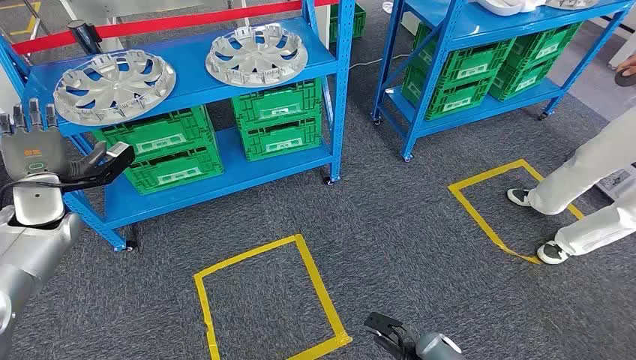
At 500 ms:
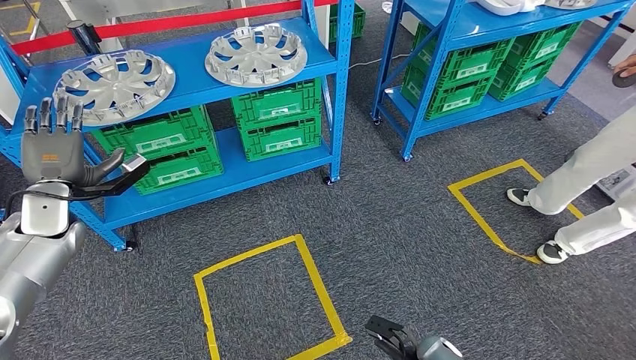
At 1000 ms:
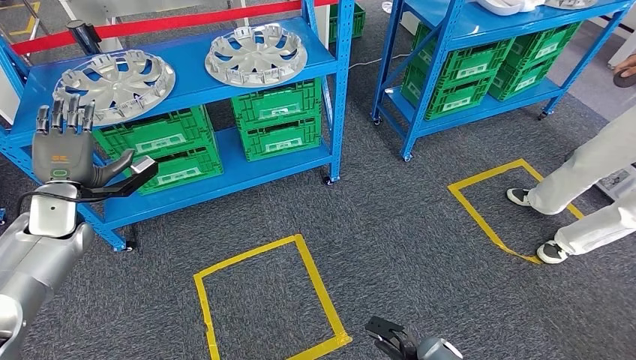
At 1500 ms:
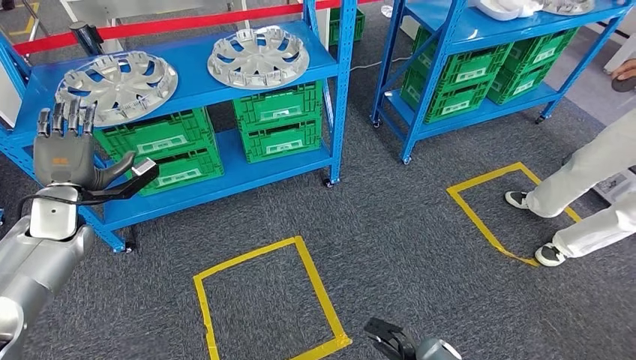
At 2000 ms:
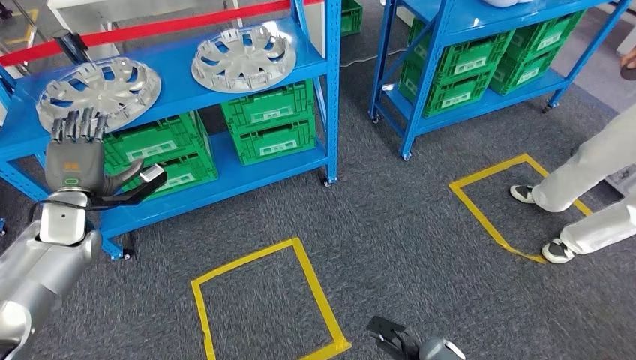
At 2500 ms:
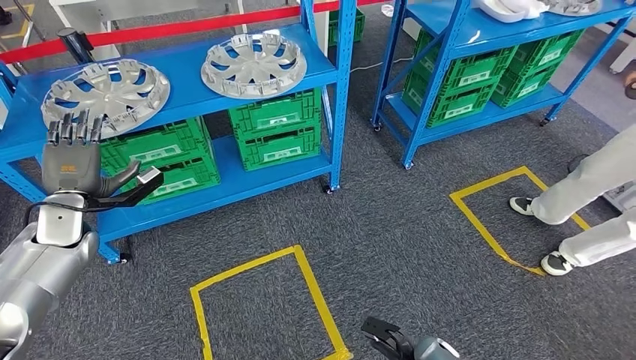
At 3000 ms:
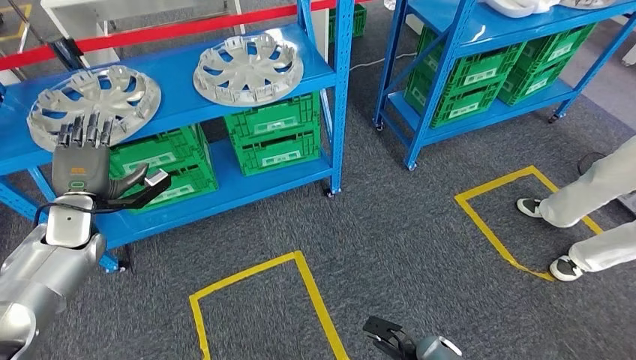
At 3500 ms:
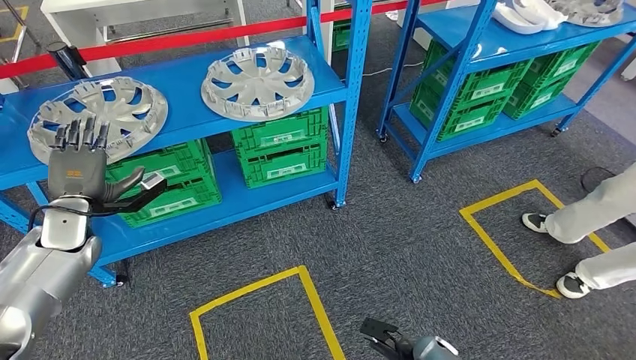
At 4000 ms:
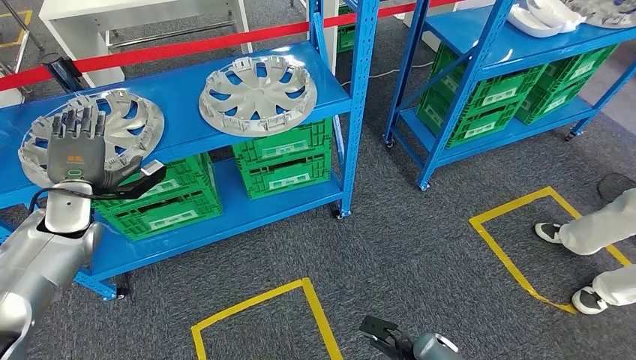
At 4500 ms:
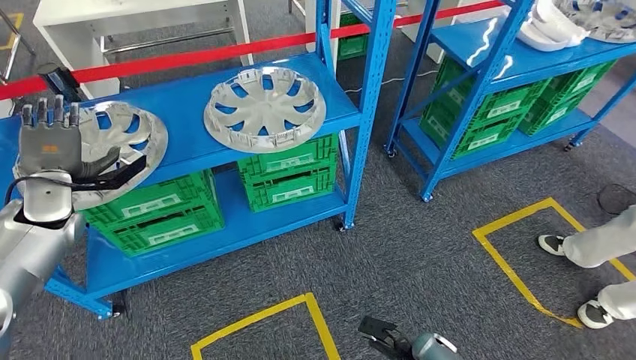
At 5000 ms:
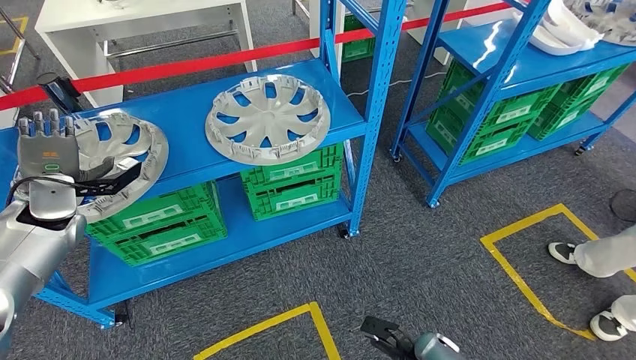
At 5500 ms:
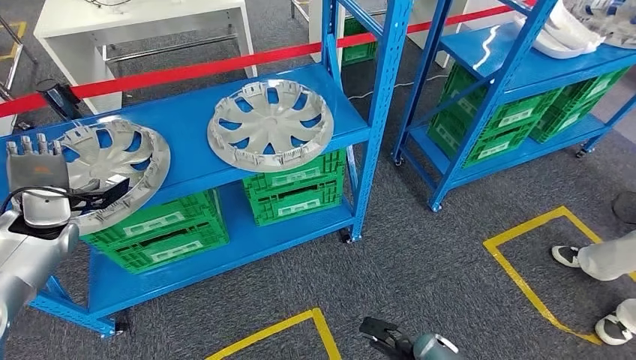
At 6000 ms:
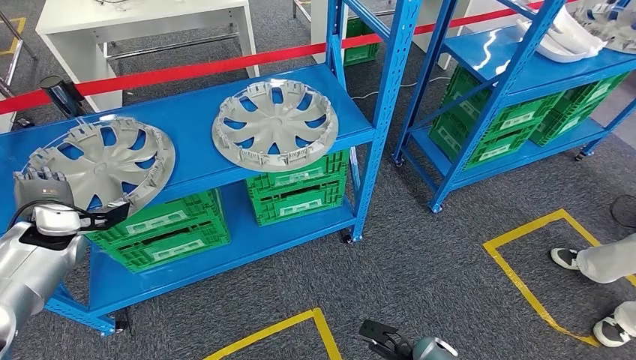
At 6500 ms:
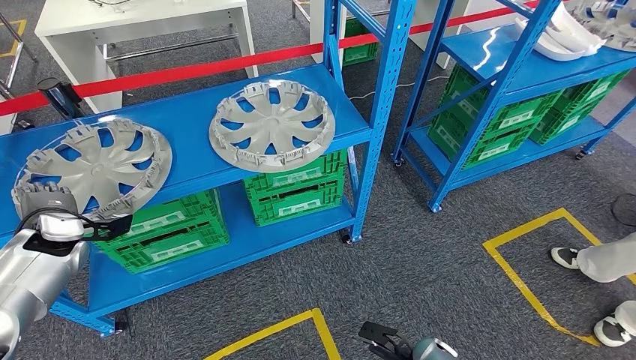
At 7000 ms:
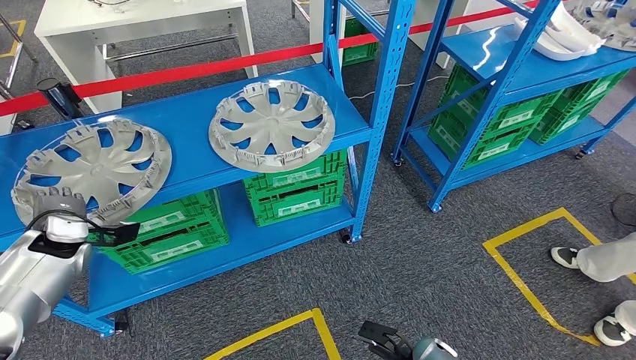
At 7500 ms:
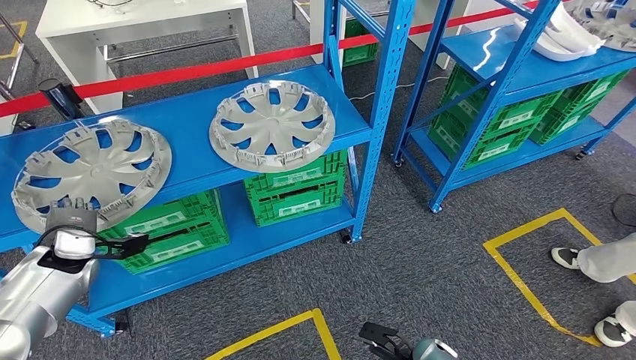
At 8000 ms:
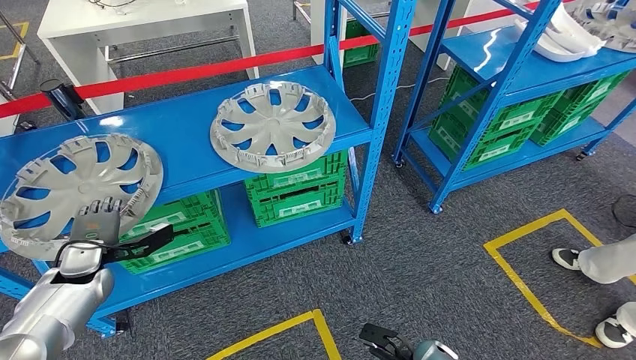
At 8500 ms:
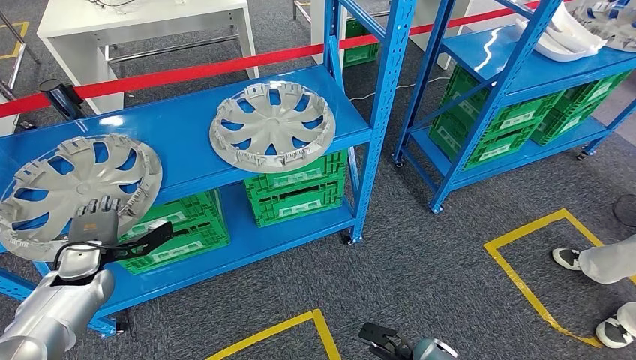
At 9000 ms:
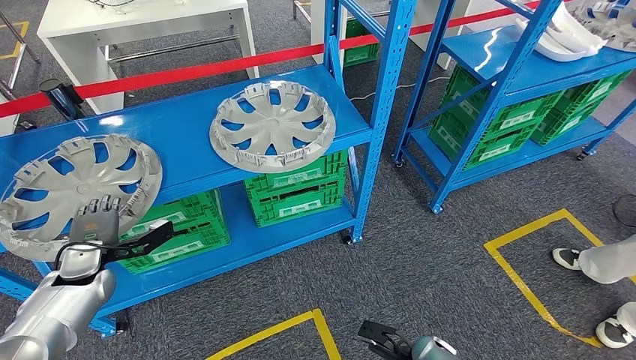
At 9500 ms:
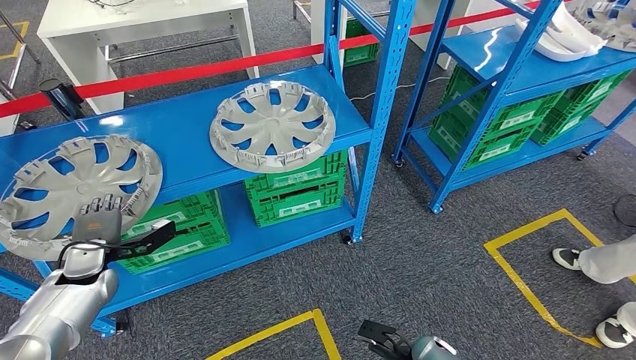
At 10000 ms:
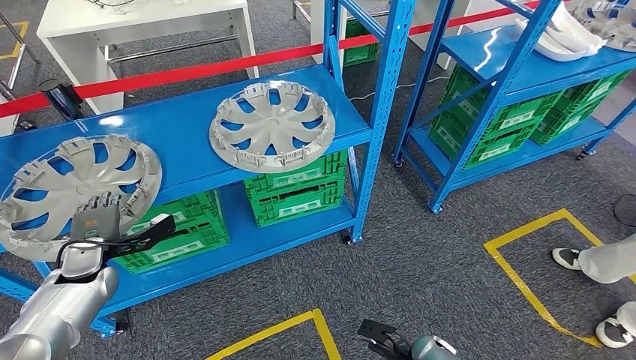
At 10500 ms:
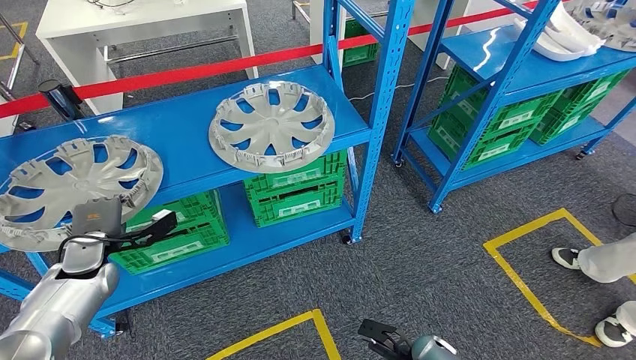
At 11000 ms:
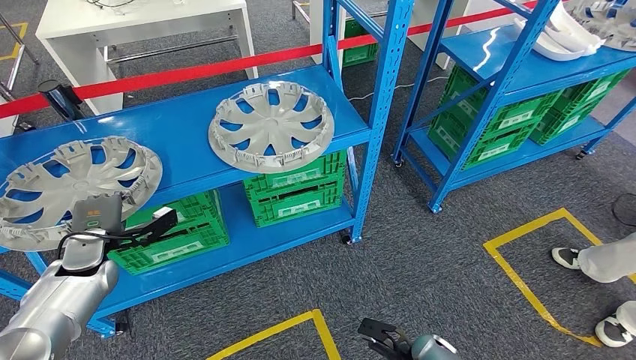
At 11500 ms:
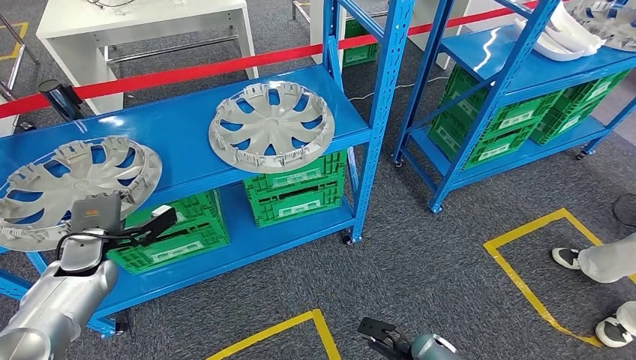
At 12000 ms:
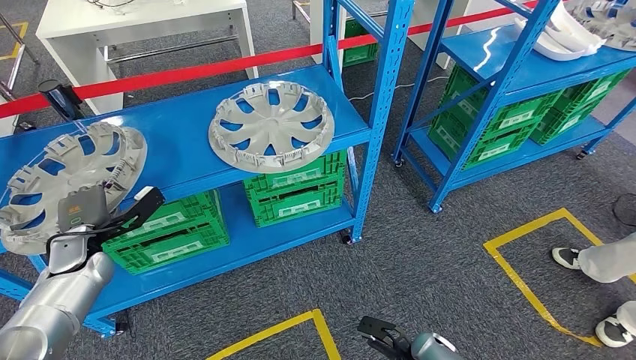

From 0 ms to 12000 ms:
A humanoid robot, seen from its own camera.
From 6000 ms to 8000 ms: The left hand moves downward, about 10 cm.
From 8000 ms to 10000 ms: The hands move only a little.

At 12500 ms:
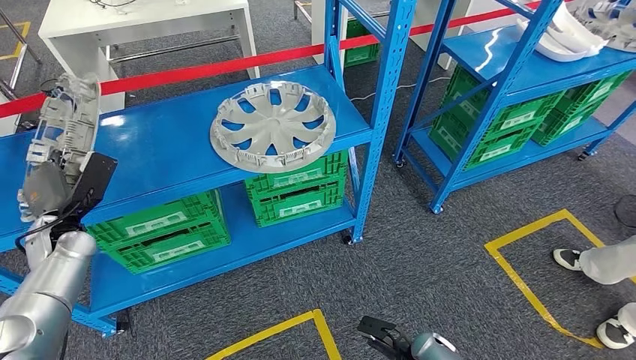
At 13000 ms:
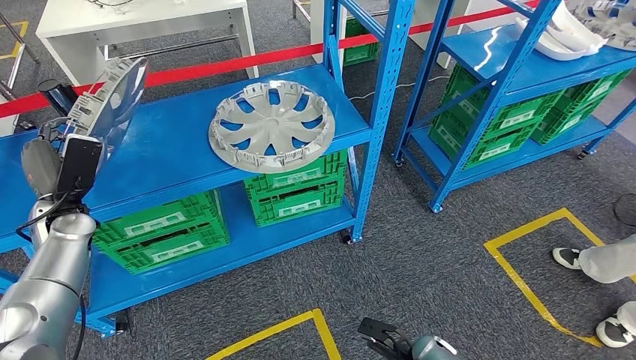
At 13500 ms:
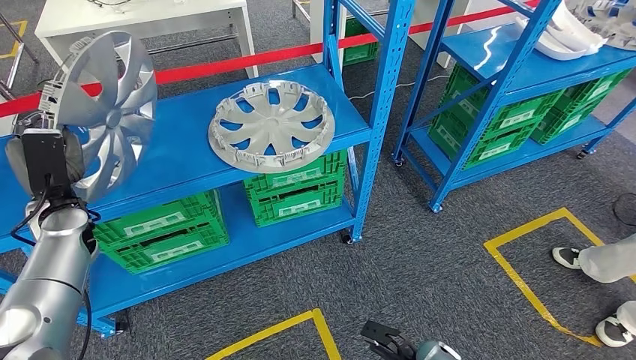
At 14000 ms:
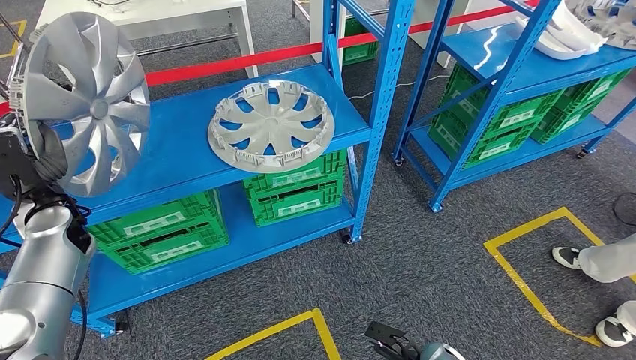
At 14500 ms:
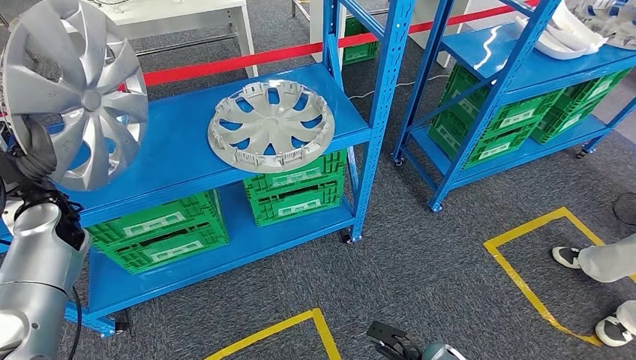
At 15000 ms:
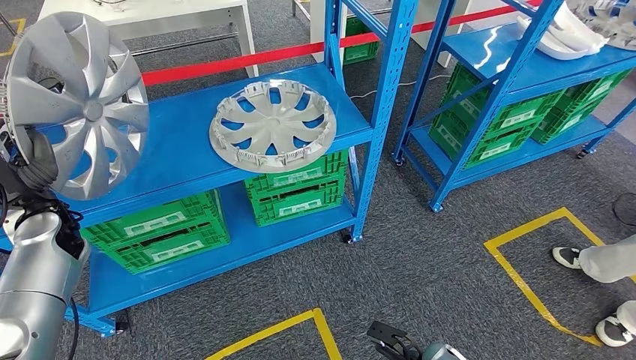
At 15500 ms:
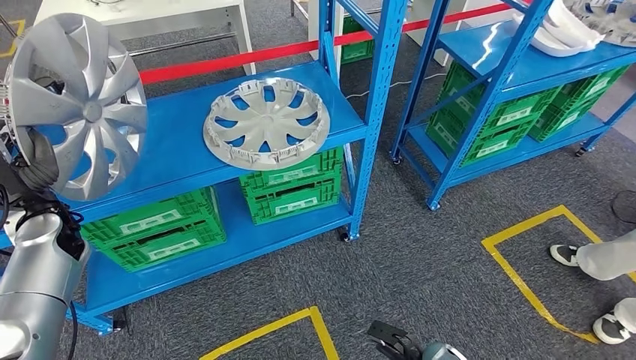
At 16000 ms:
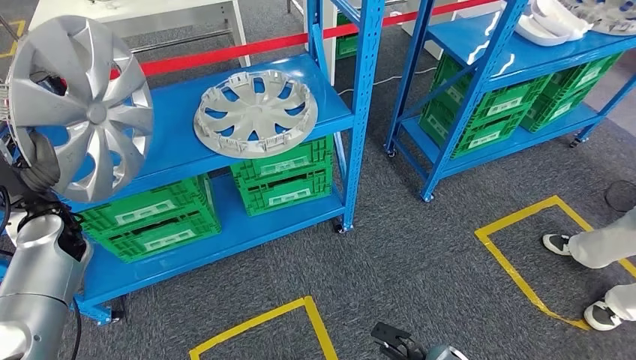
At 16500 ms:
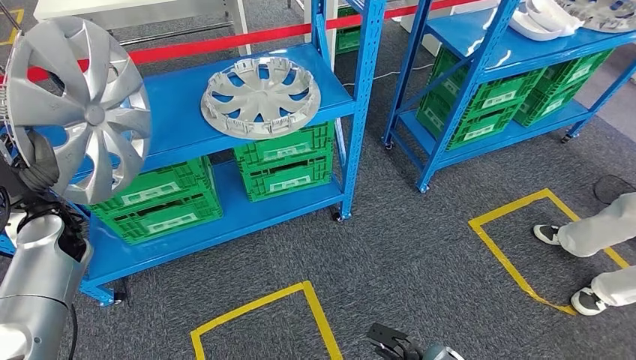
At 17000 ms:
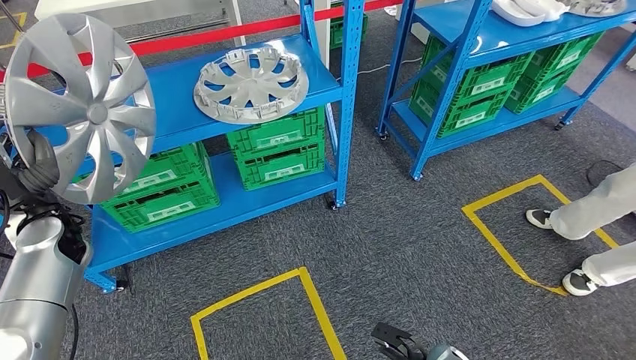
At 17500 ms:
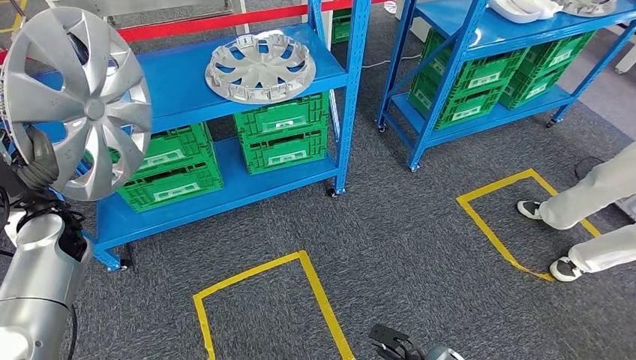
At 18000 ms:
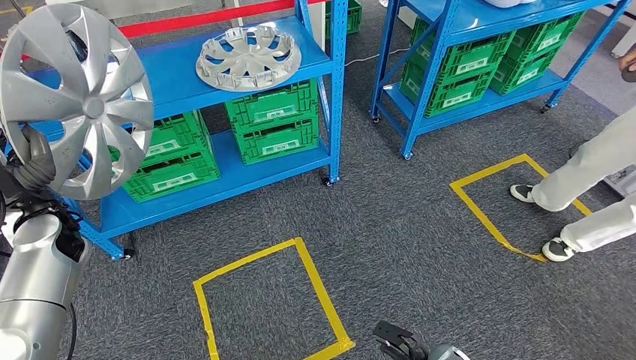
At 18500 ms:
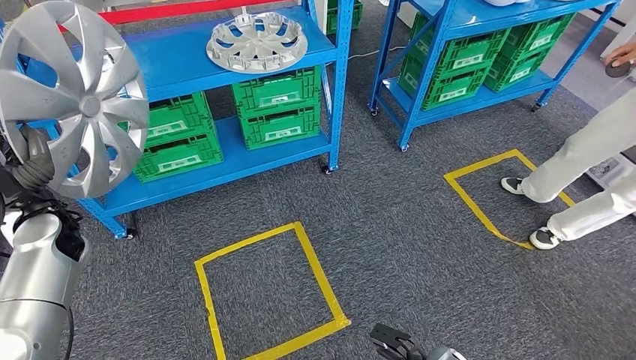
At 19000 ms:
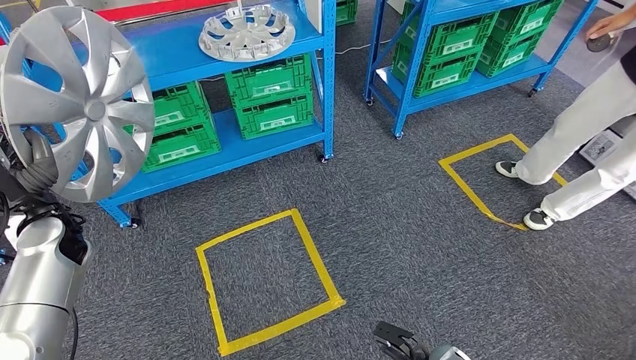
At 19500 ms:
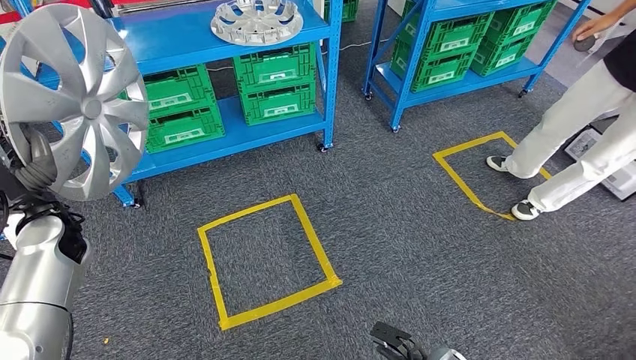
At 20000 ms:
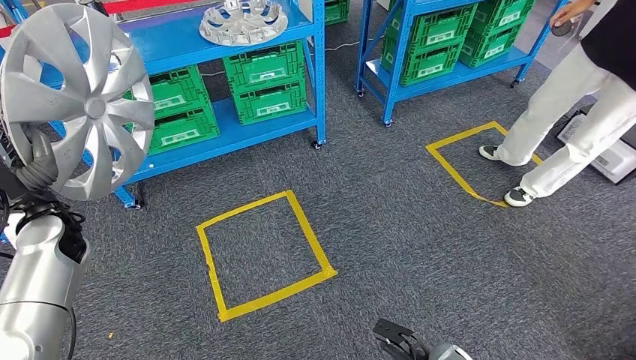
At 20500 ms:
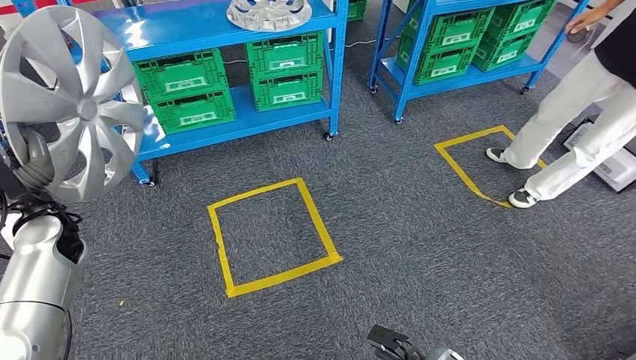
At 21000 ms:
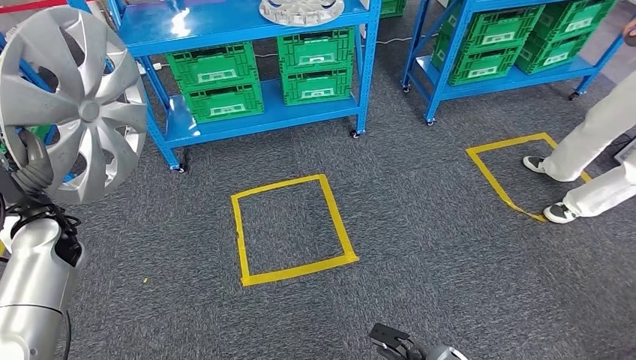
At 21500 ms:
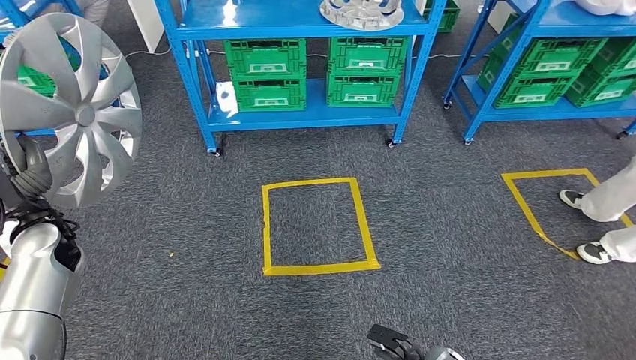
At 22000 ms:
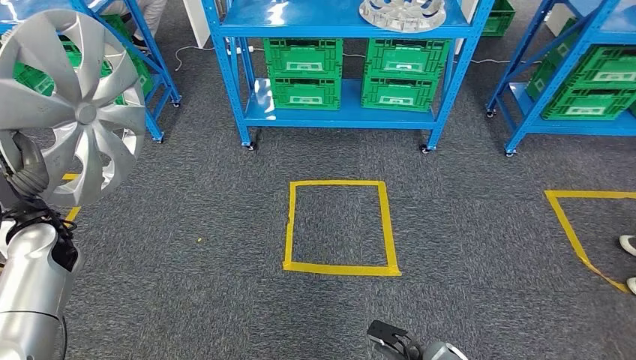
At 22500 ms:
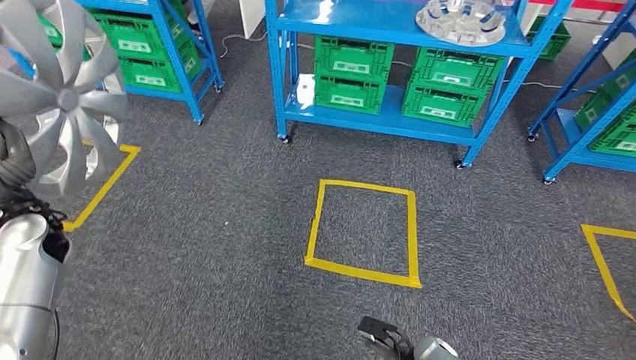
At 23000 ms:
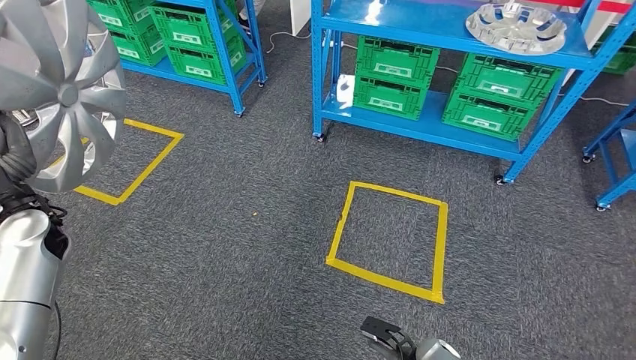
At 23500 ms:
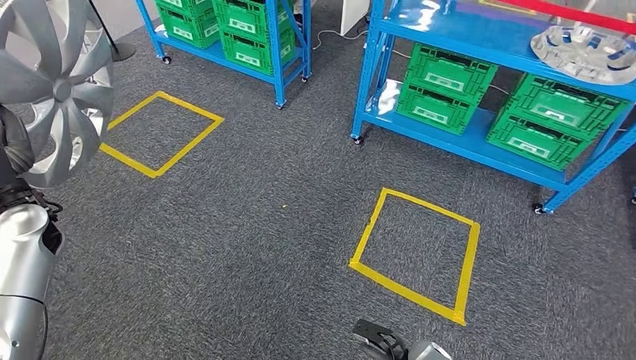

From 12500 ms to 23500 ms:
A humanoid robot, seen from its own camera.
Step, from 12500 ms to 14500 ms: Pick up the small component from the shelf.
From 12500 ms to 14500 ms: The left hand goes about 5 cm upward.
